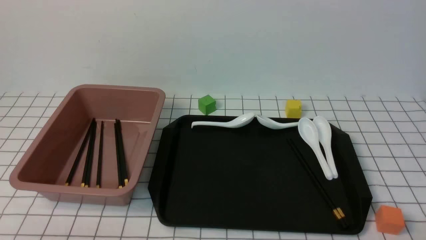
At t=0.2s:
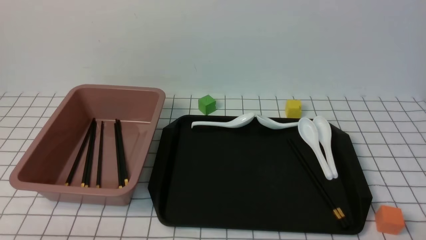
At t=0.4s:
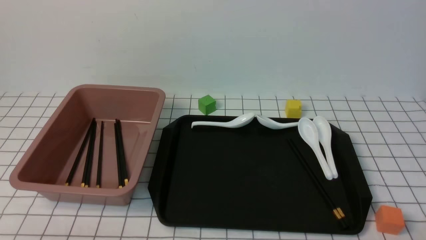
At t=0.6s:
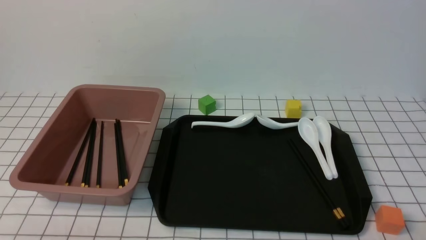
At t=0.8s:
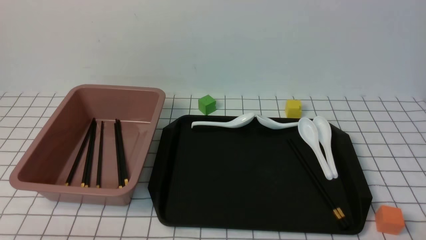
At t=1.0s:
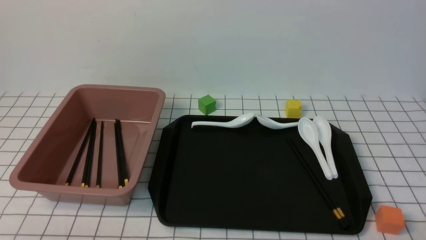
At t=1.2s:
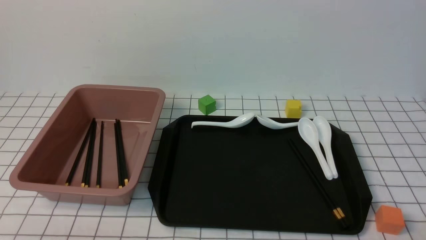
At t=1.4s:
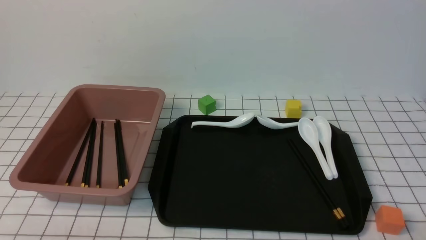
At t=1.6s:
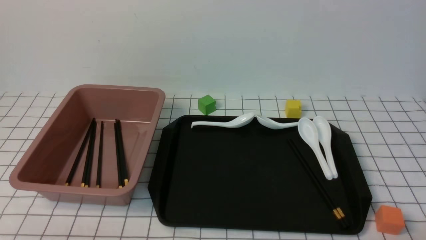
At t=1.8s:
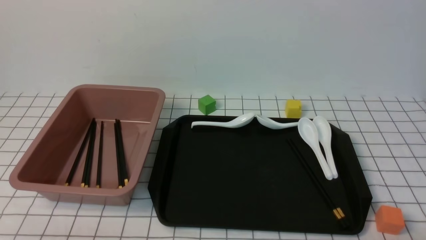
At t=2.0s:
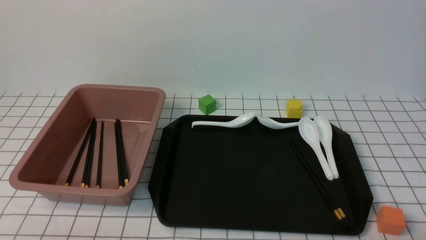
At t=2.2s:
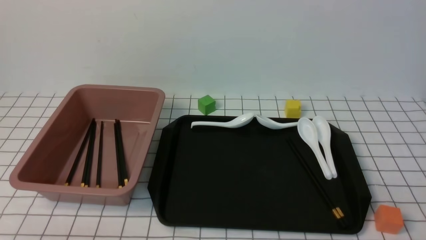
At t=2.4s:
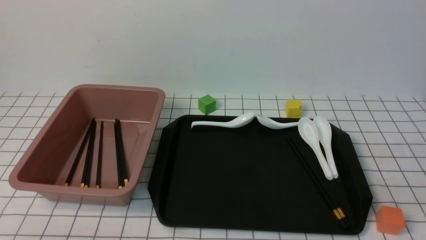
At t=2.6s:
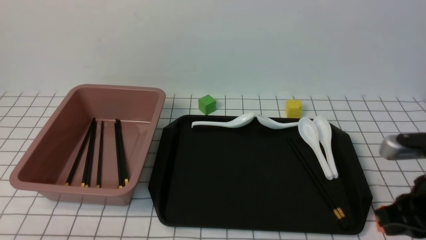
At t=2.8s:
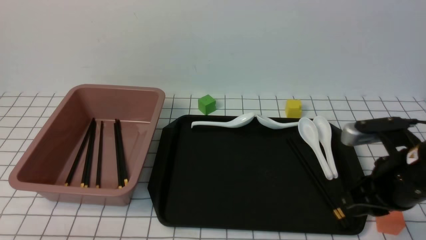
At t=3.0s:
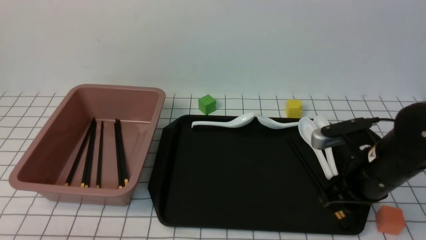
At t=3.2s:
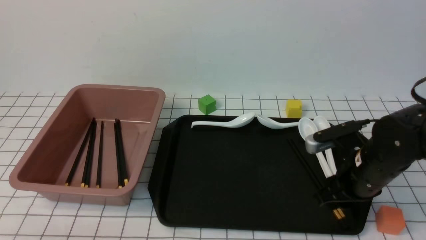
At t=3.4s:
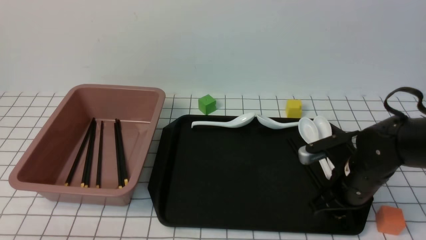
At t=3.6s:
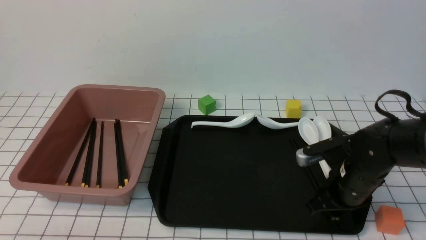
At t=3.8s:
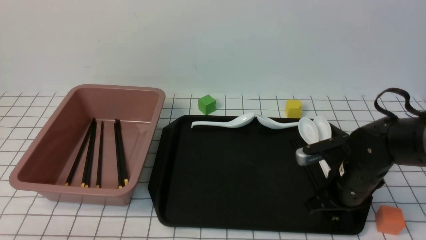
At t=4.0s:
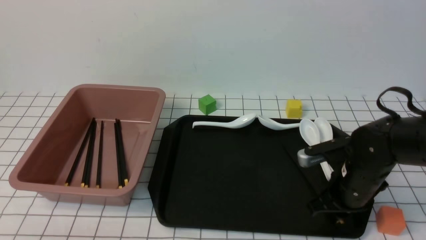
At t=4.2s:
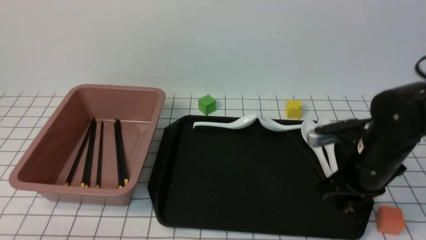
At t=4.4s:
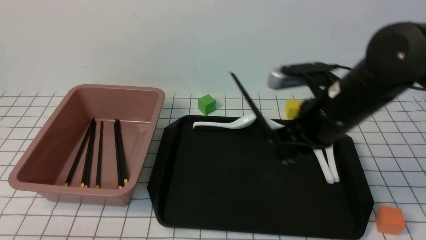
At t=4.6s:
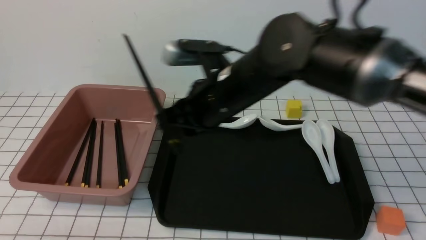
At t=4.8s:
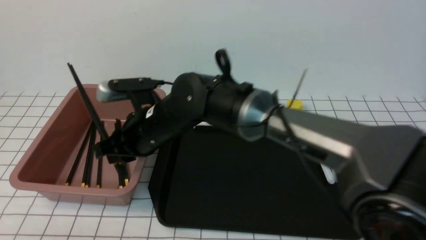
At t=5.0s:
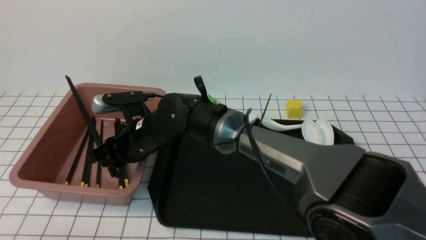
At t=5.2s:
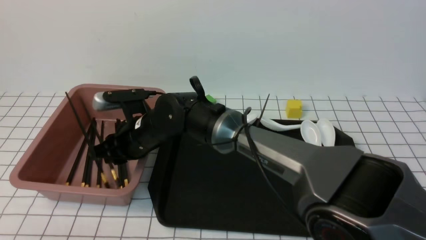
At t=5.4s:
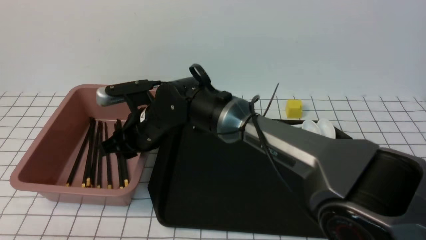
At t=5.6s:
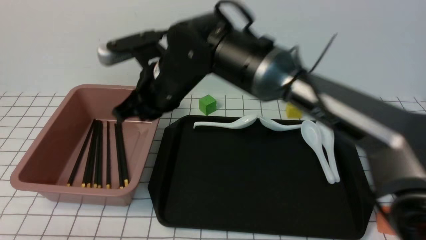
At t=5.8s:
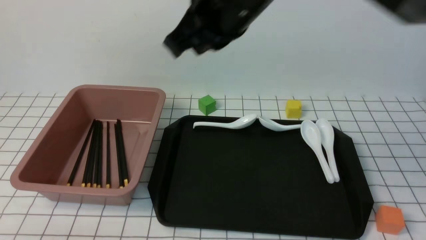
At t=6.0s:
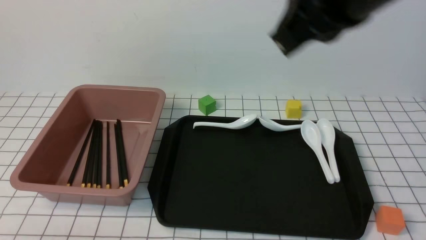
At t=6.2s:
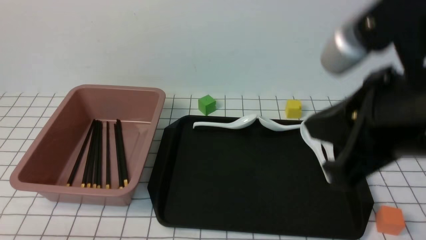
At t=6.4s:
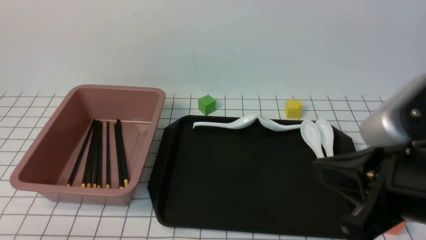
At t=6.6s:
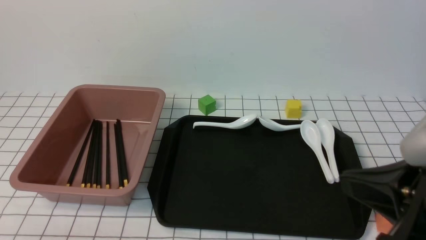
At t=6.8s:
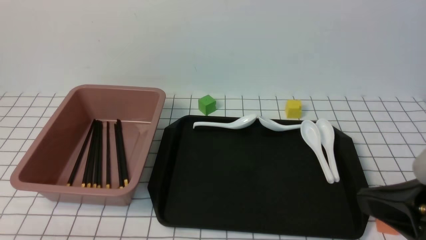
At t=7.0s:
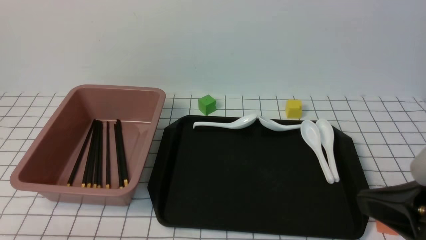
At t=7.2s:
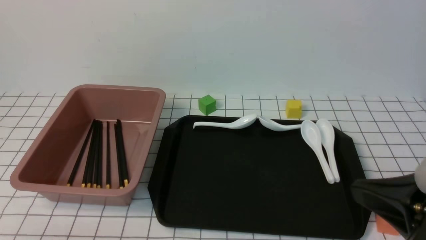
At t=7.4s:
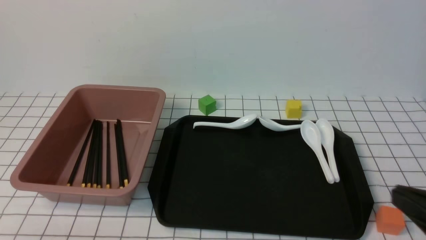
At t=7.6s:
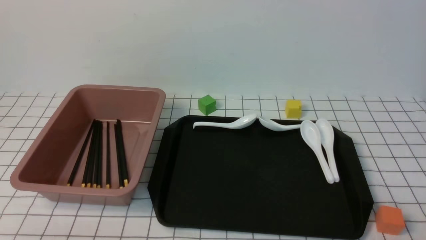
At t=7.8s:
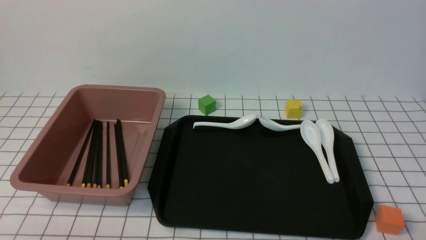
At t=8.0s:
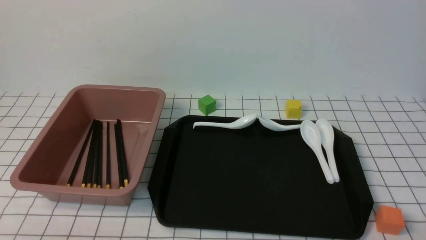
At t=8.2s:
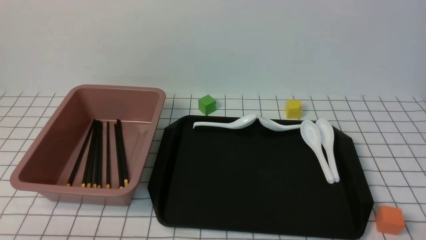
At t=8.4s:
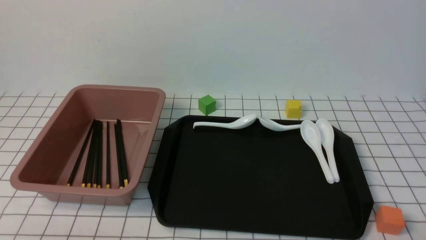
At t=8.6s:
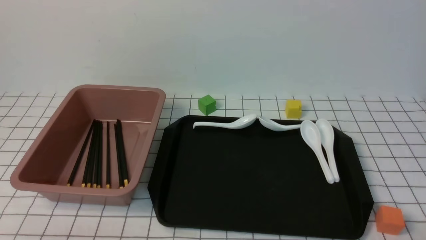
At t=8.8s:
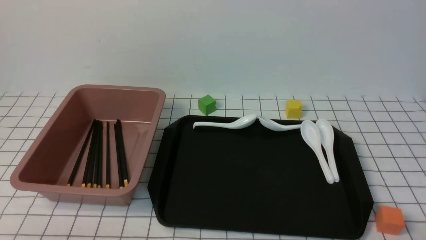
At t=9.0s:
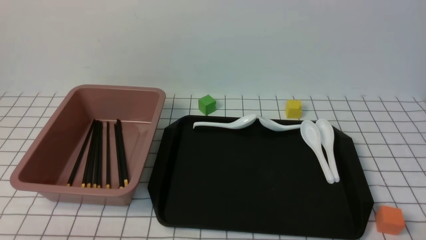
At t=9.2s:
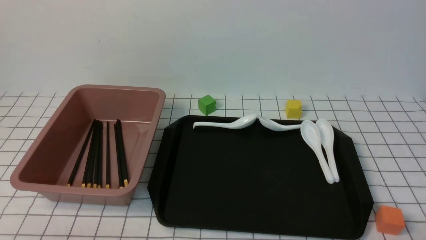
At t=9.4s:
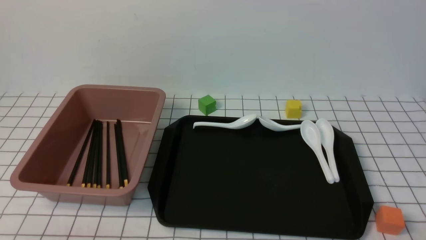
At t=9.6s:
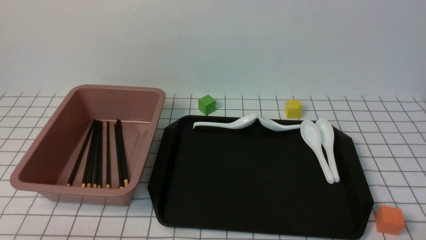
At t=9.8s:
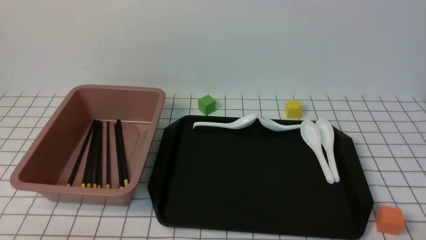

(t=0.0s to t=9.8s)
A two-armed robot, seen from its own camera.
Step, t=0.0s - t=2.8s: use the right arm to grab a pair of chopsticks.
Step, t=3.0s - t=5.4s: use the right arm to put the chopsticks into the lunch box.
t=1.4s - t=2.8s: The right gripper moves forward, roughly 20 cm, and opens up.
t=2.8s - t=4.2s: The right gripper shifts approximately 10 cm forward and to the left, goes downward and returns, roughly 10 cm each way, and opens, then closes again.
t=4.2s - t=5.6s: The right gripper travels to the left and upward by roughly 25 cm.
t=5.6s - t=7.0s: The right gripper heads to the right and backward, covering some 35 cm.
t=7.0s - t=8.4s: The right gripper travels downward and to the right by roughly 20 cm.
t=8.4s - t=9.8s: Neither gripper changes place.
